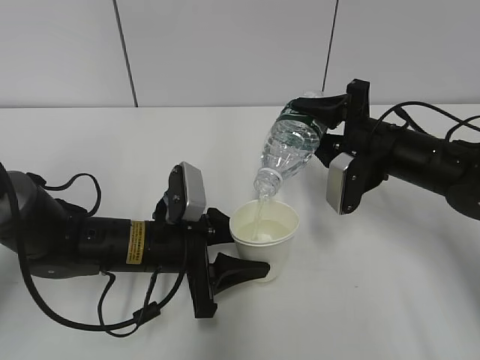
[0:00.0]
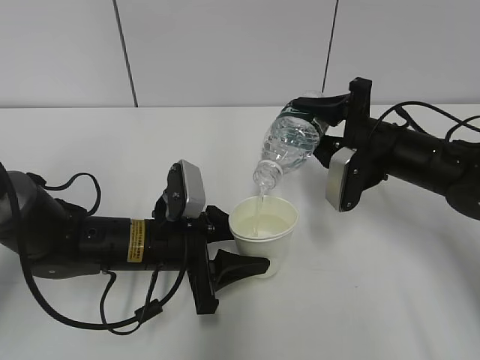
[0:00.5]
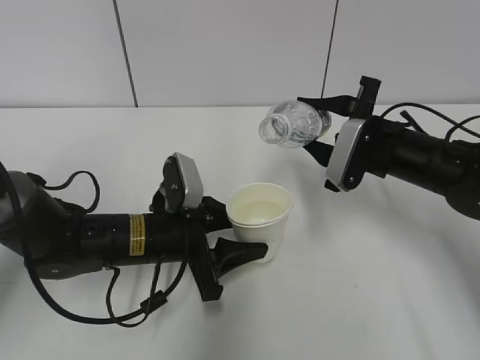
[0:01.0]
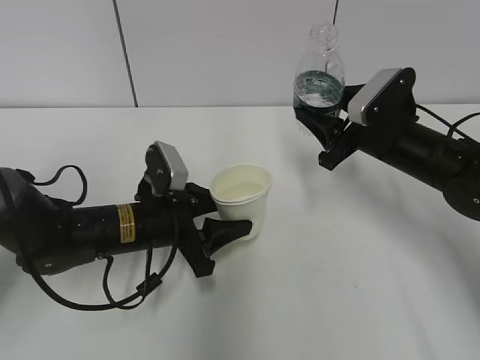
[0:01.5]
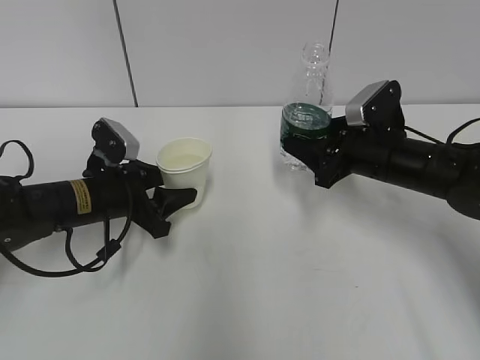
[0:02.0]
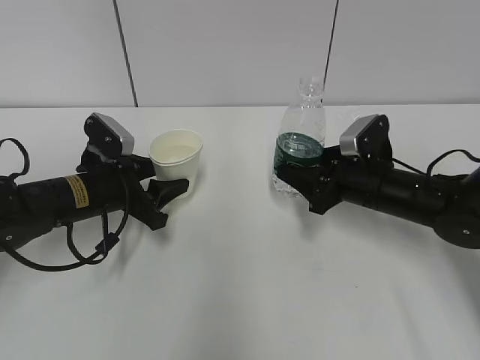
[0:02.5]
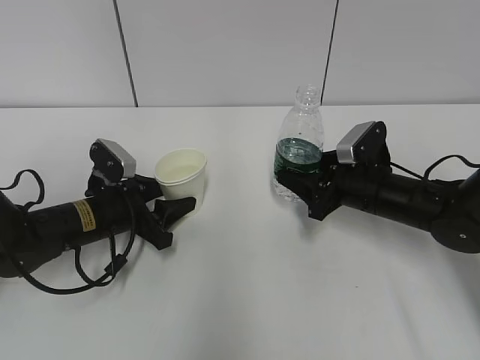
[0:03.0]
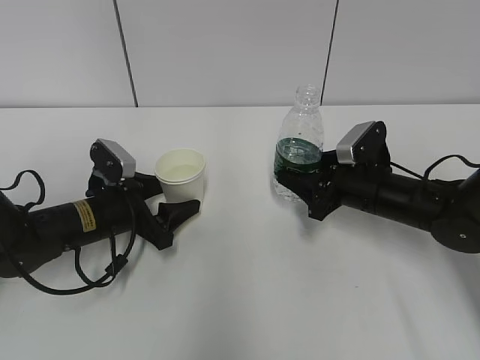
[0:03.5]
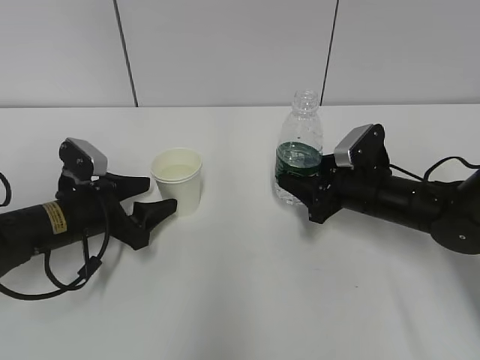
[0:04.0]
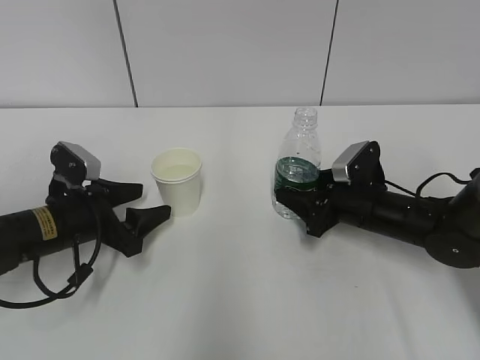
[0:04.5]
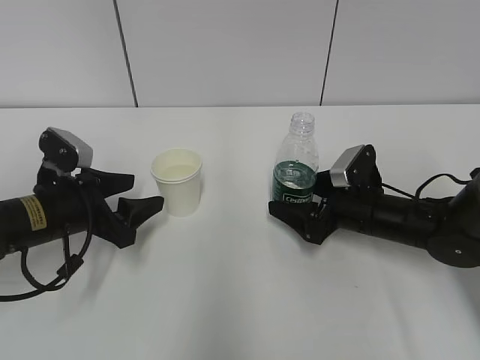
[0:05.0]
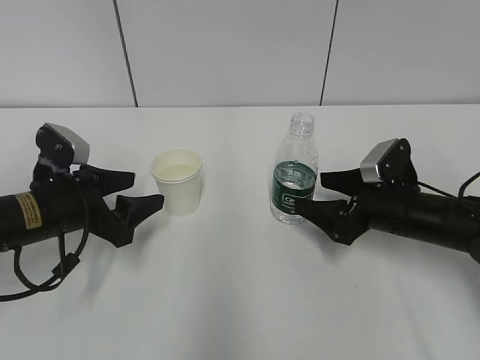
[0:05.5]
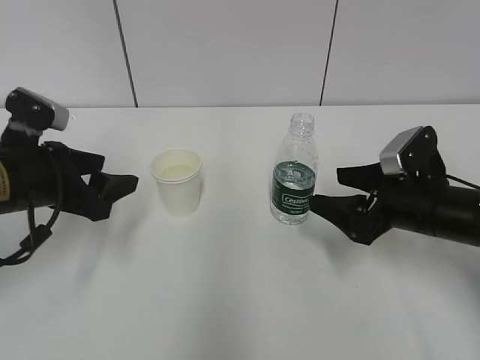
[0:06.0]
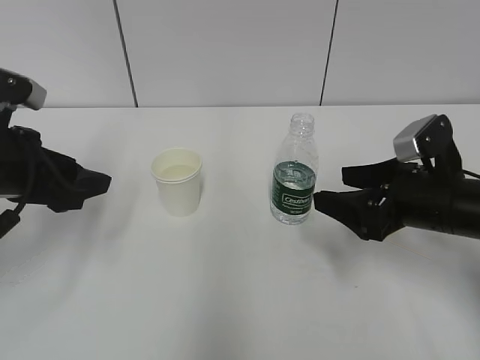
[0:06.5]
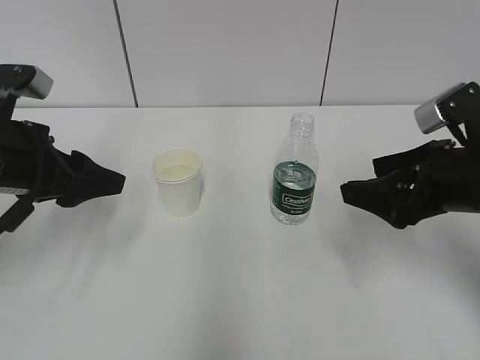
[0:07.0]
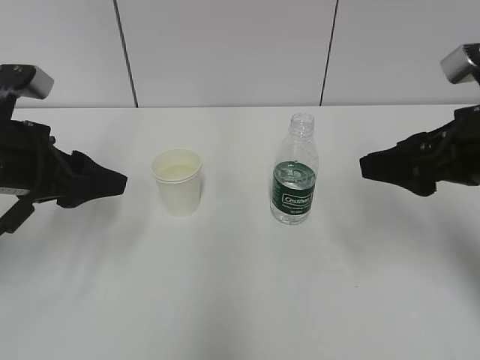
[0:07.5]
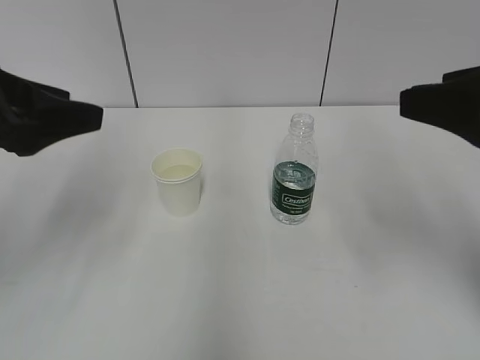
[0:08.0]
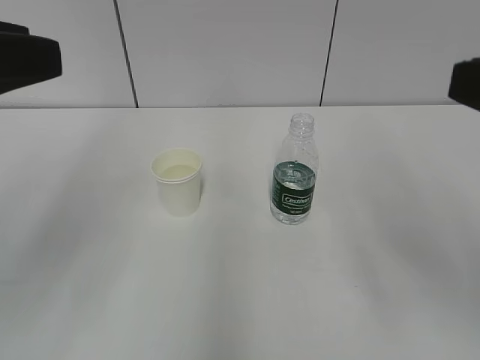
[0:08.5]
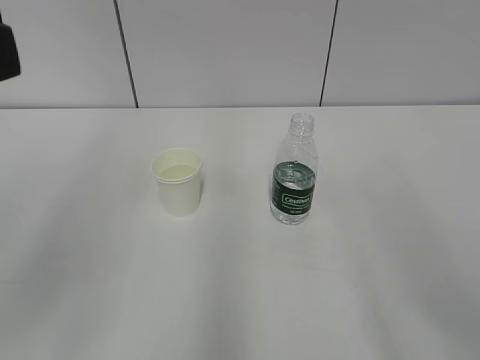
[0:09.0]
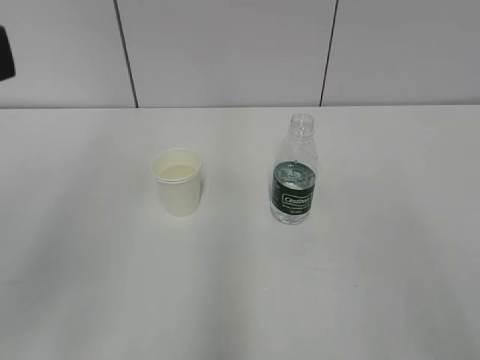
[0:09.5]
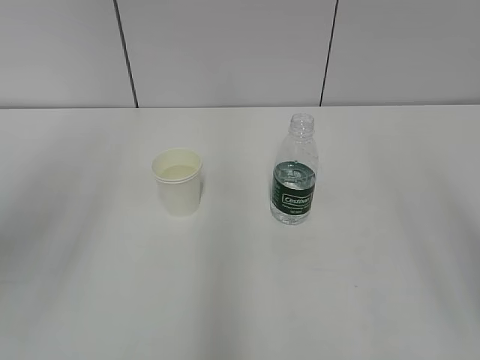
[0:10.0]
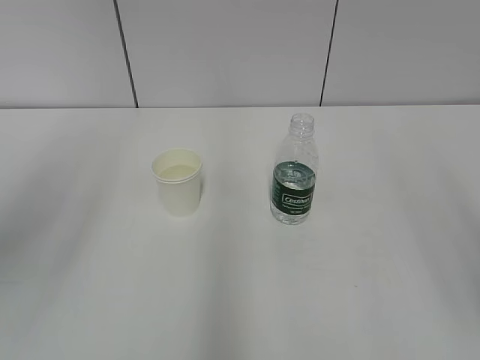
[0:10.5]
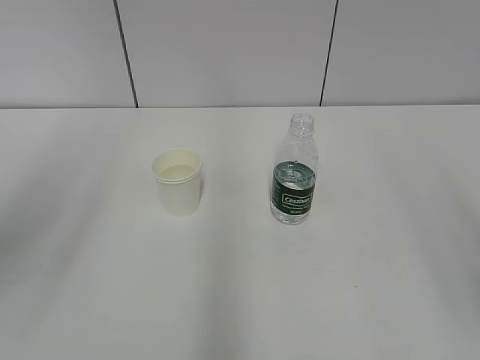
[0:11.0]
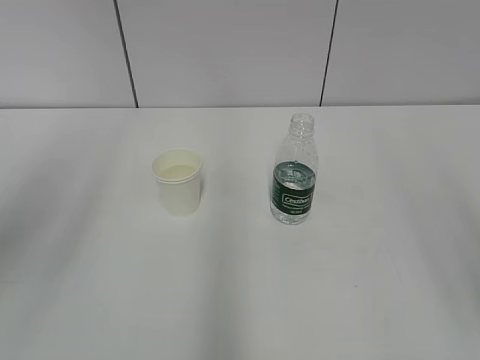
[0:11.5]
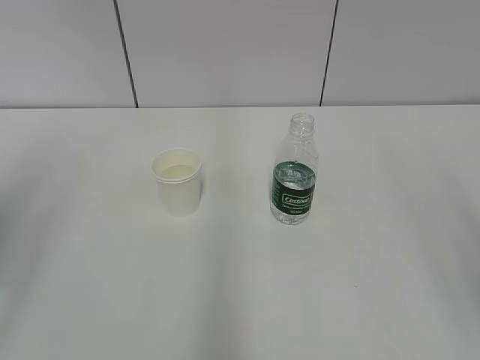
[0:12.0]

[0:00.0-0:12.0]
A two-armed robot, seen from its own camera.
0:00.0 to 0:02.0: The left gripper heads to the left and forward, covering approximately 10 cm.
0:02.0 to 0:04.0: The left gripper opens up. Meanwhile the right gripper travels downward by some 5 cm.
0:04.0 to 0:06.0: The right gripper travels backward by approximately 5 cm, and opens. The left gripper shifts approximately 10 cm upward.
0:06.0 to 0:08.0: Both grippers travel together upward and backward, about 20 cm.
0:08.0 to 0:10.0: The right gripper goes approximately 15 cm backward. Meanwhile the left gripper travels upward and backward by roughly 10 cm.

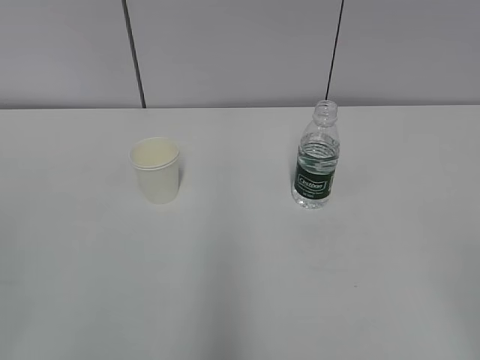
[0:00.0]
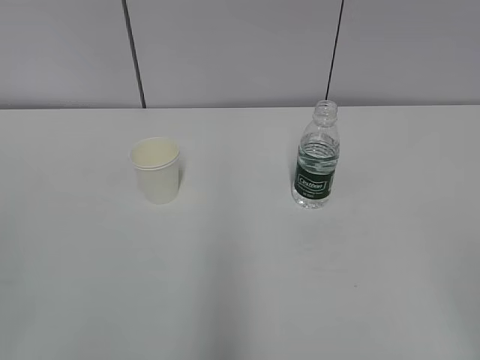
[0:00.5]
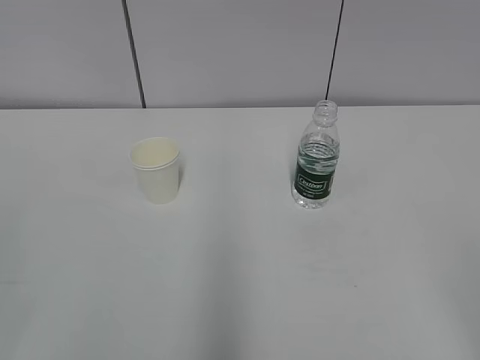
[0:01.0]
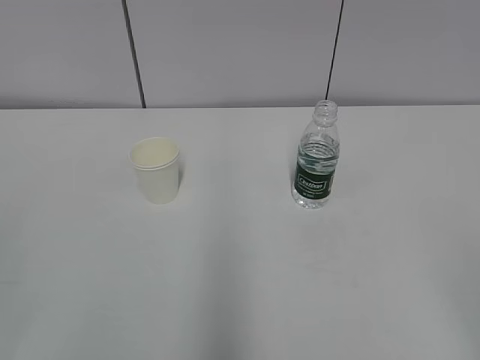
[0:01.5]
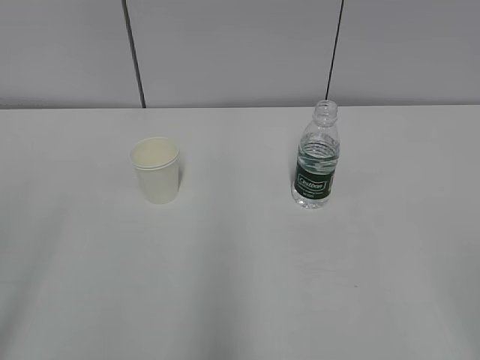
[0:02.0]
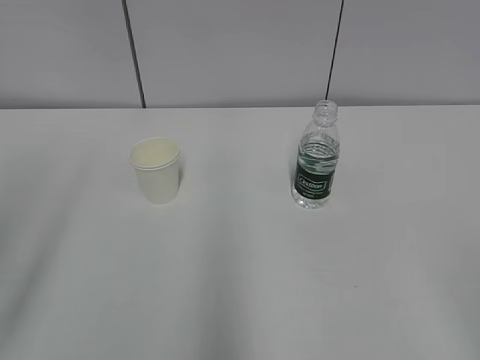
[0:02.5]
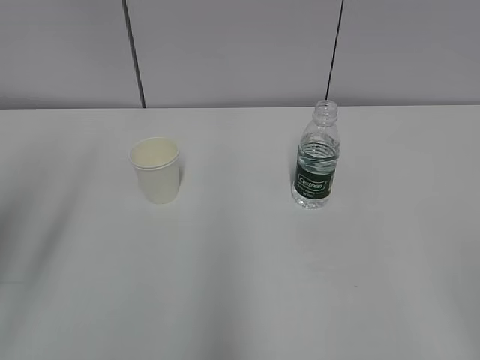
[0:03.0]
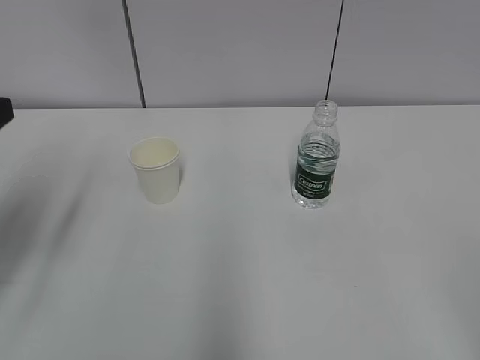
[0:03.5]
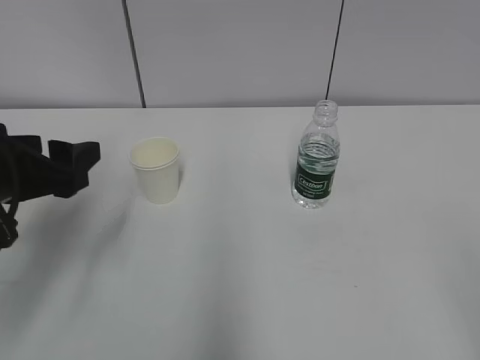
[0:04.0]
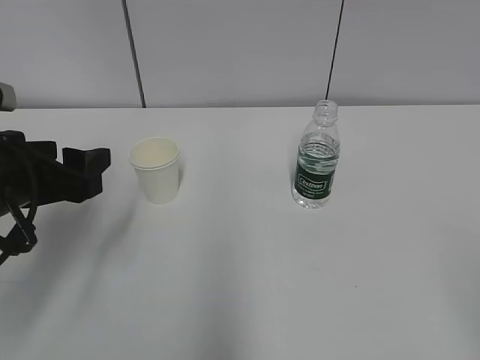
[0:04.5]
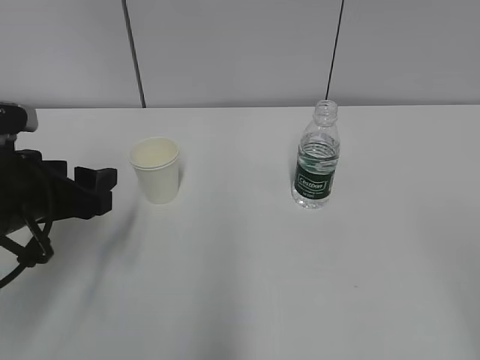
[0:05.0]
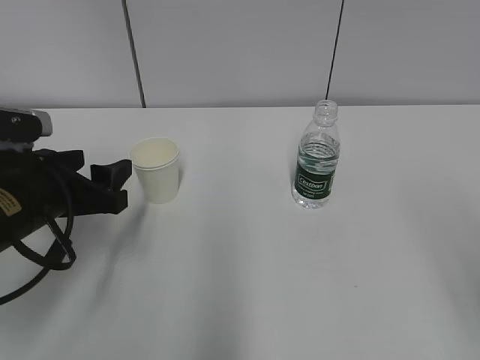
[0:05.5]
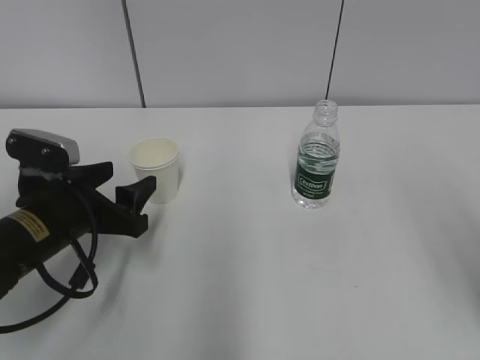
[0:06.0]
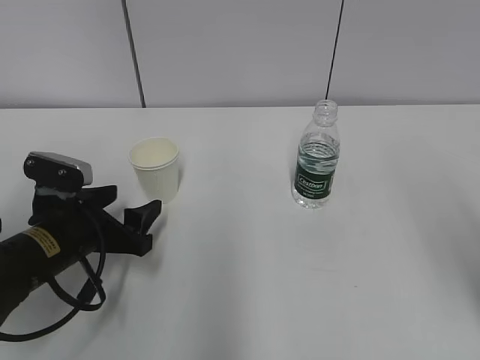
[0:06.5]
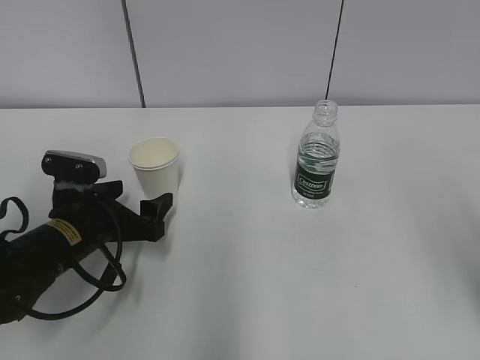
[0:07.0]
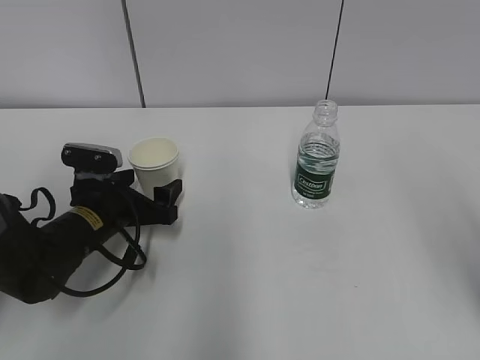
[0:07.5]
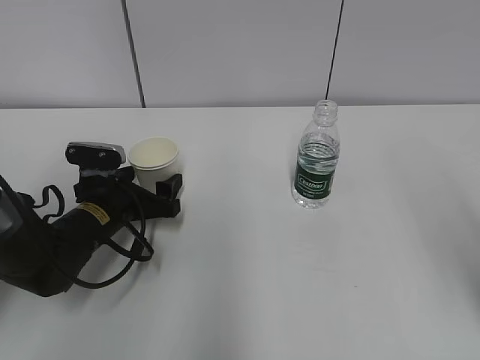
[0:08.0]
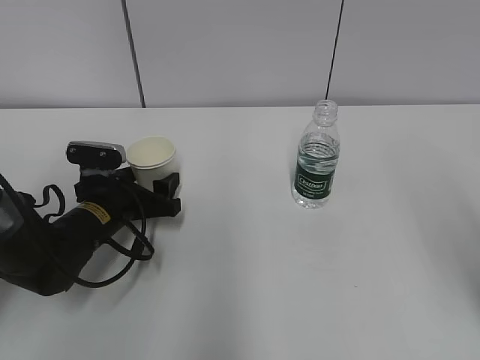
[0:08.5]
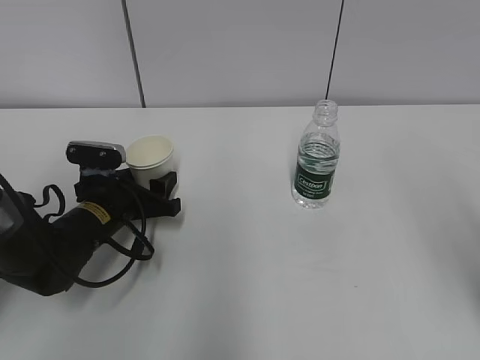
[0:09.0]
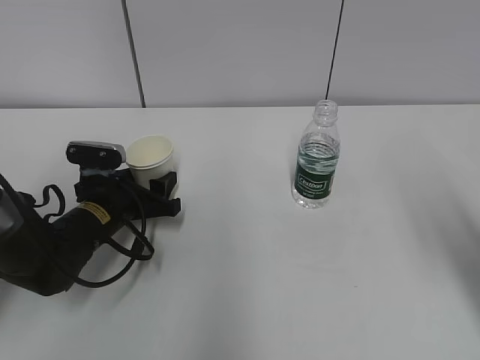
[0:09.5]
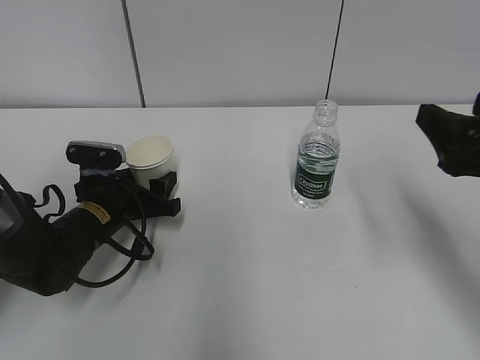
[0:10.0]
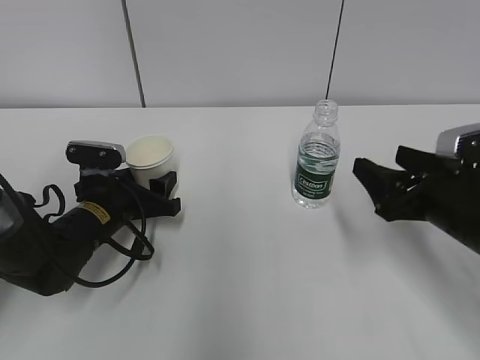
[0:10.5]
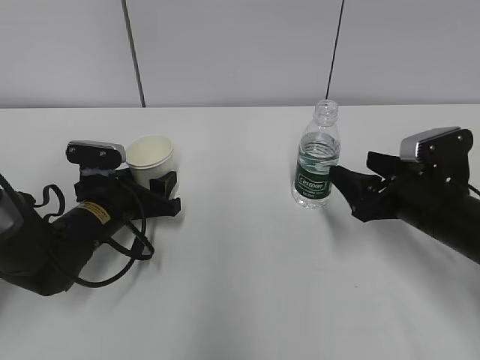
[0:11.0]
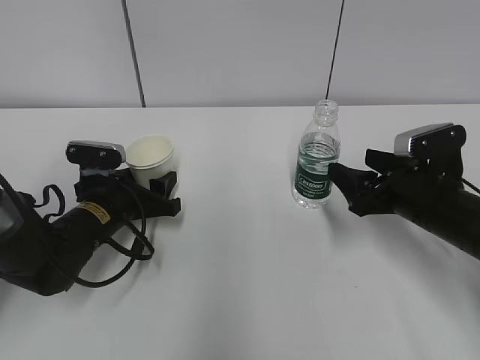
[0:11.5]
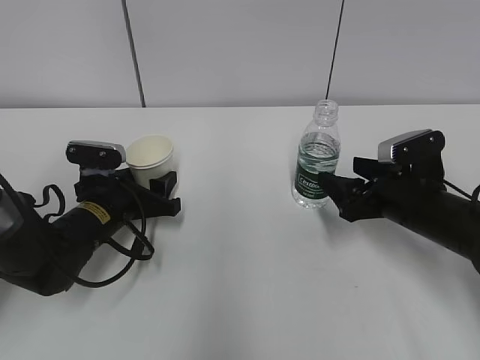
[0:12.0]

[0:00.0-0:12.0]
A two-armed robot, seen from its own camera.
0:02.0 to 0:04.0: The left gripper goes approximately 25 cm forward and downward.
0:04.0 to 0:06.0: The left gripper is displaced downward by approximately 10 cm.
0:06.0 to 0:08.0: The left gripper shifts about 10 cm forward and downward.
0:08.0 to 0:10.0: The left gripper closes its fingers, while the right gripper moves forward and downward, approximately 15 cm.
0:10.0 to 0:12.0: The right gripper is displaced downward and forward by about 15 cm.

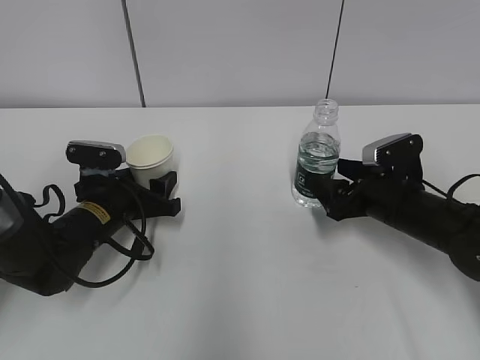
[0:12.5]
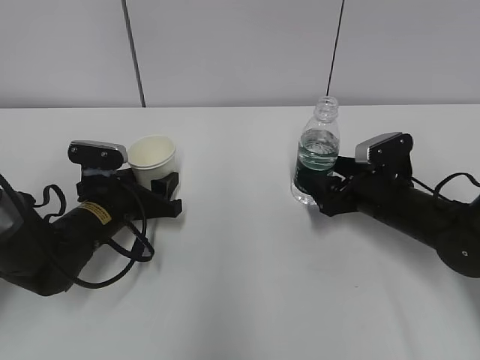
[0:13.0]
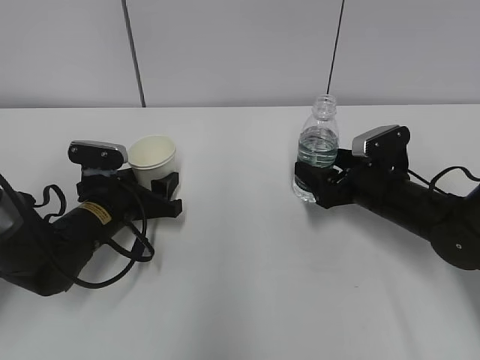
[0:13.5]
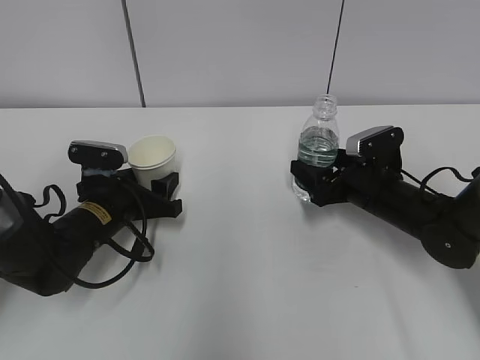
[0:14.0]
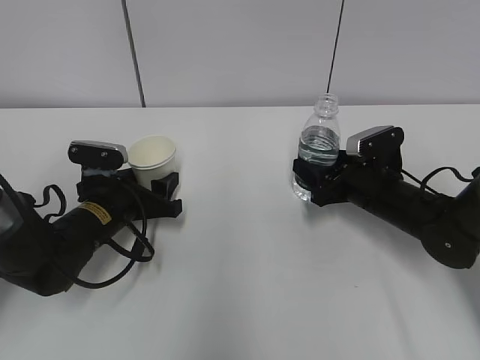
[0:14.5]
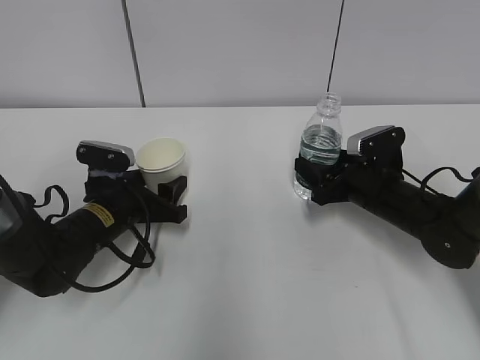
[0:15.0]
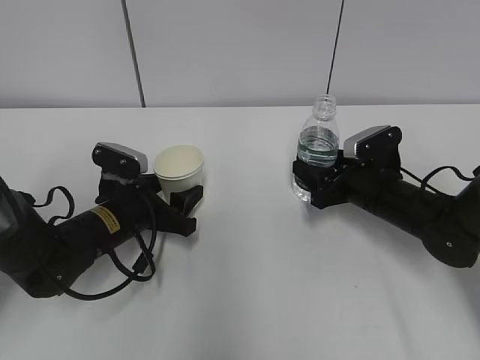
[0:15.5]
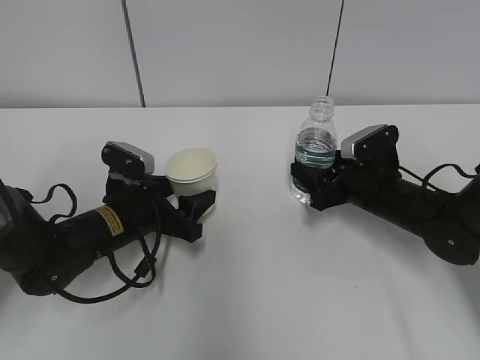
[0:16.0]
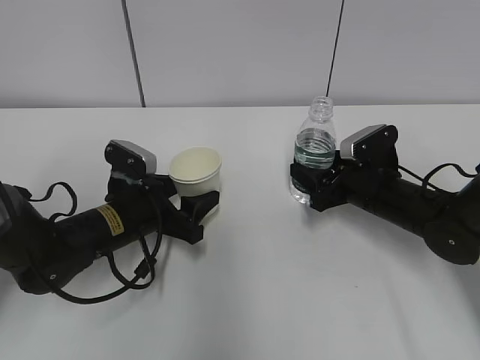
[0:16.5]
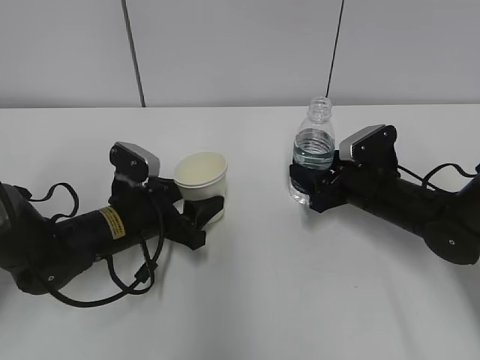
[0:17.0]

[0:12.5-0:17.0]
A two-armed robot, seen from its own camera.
0:12.5 to 0:14.5: The right gripper closes up.
